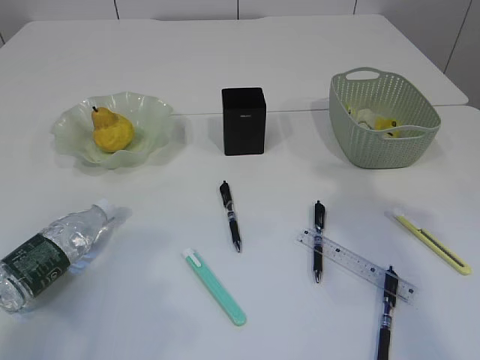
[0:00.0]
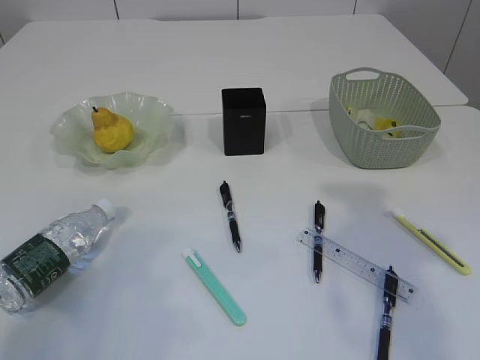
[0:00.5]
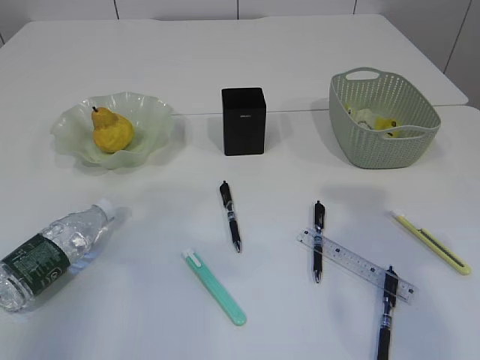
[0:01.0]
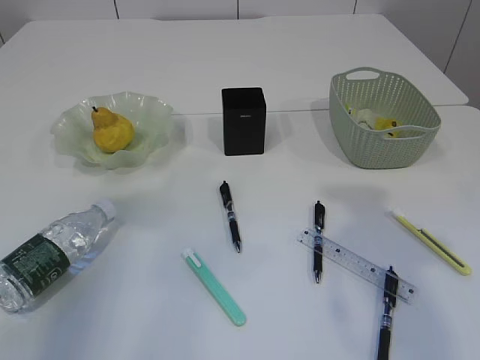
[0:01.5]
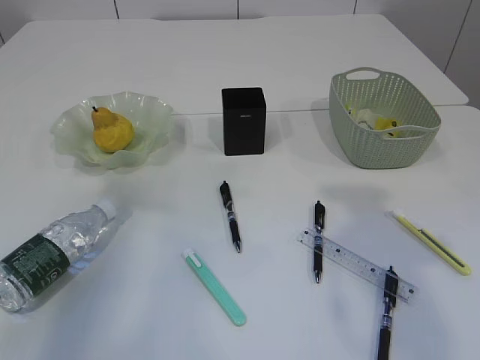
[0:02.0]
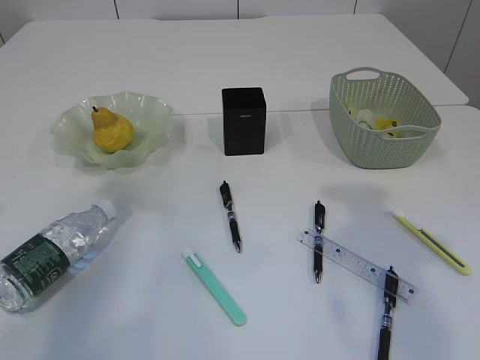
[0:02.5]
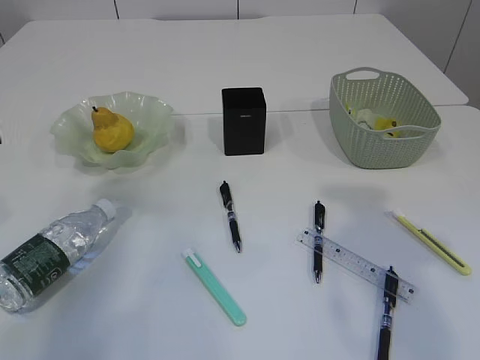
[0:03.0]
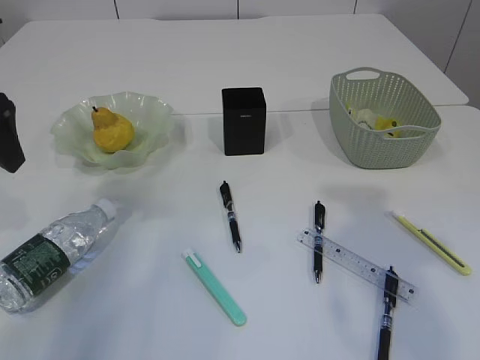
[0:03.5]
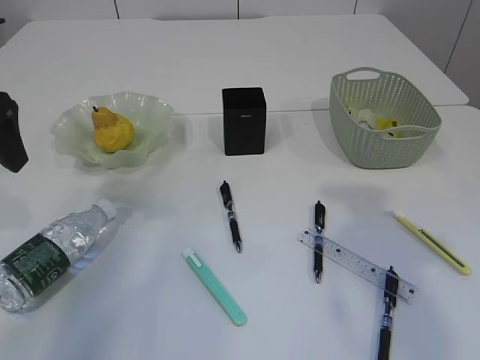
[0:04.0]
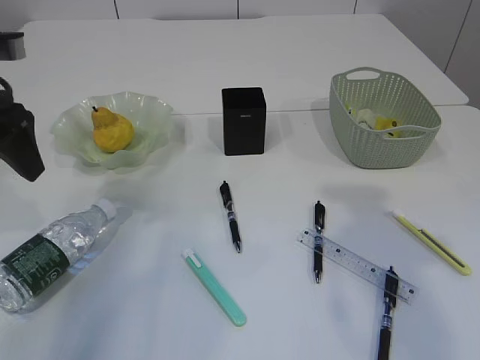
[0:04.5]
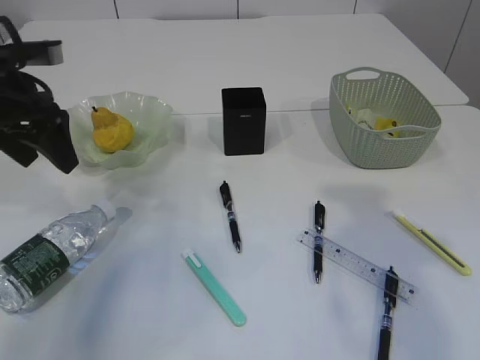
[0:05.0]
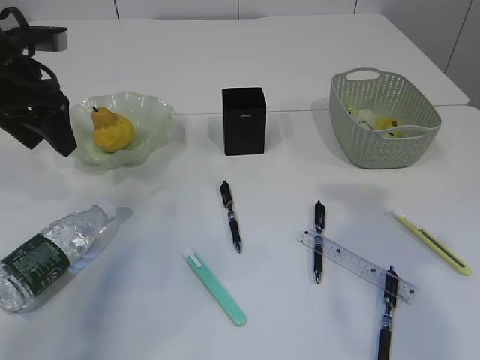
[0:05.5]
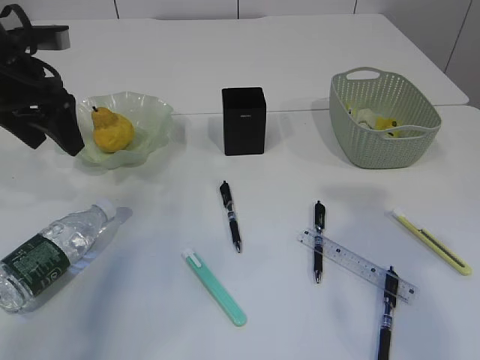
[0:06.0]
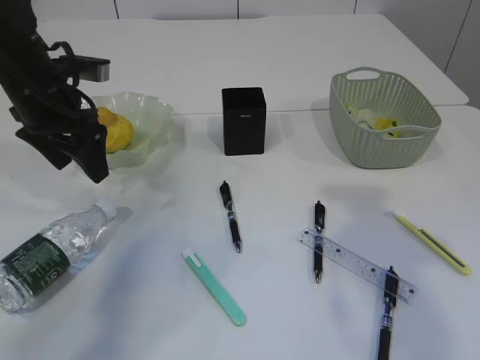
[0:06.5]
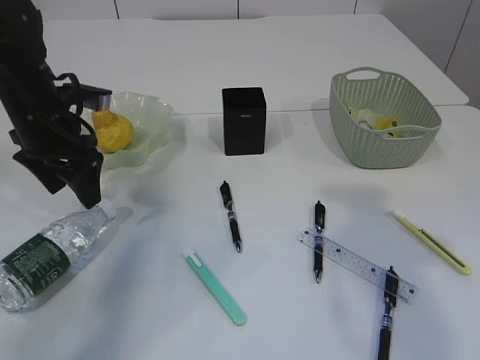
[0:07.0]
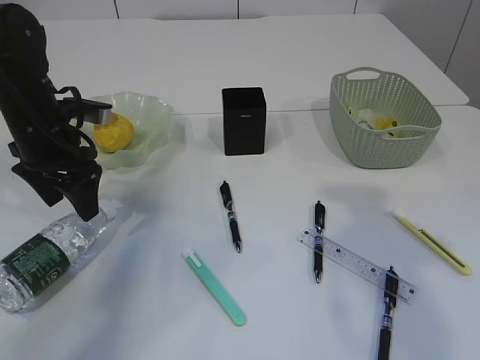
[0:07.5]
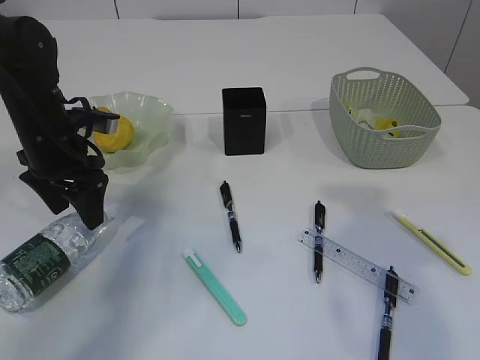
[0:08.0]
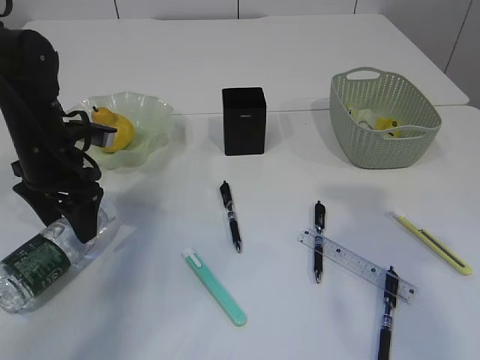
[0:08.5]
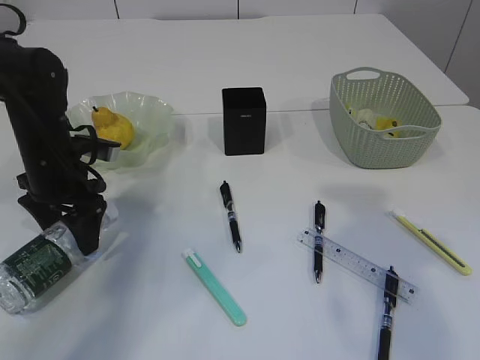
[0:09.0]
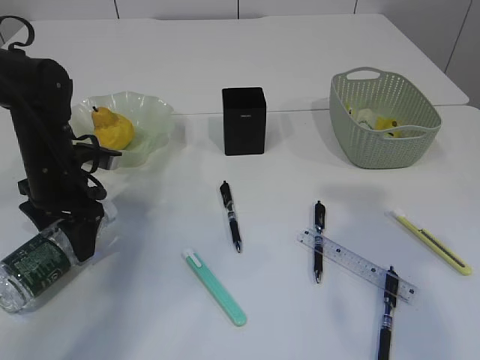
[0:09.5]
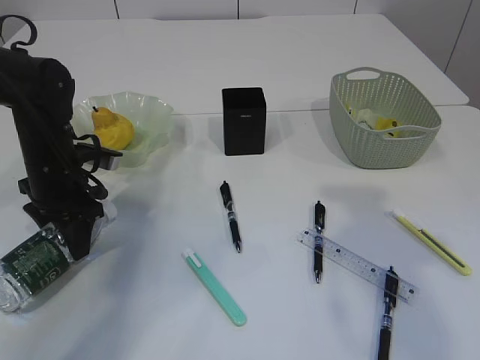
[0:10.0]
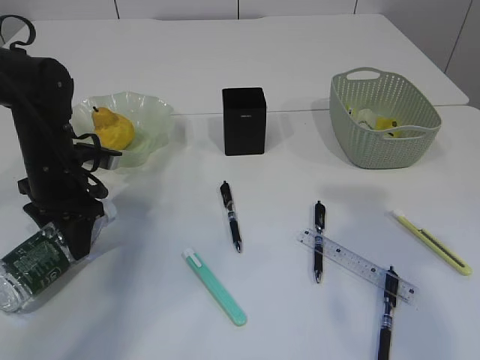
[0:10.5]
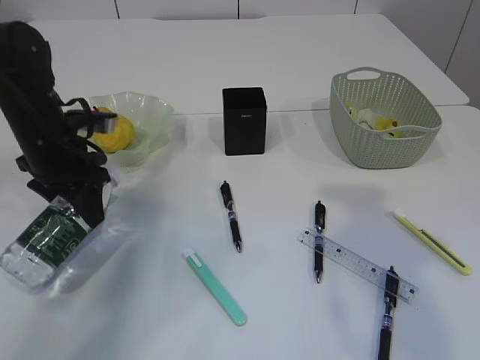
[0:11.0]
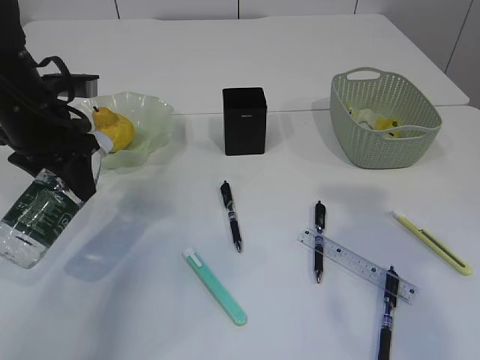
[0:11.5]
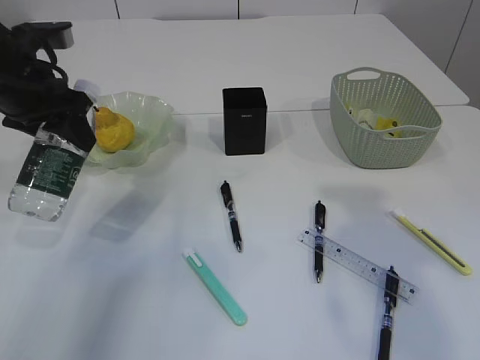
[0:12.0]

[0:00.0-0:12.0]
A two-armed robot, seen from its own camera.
Step, 0:00.0 to 0:11.0: Pick up the bottle with the left arm.
0:02.0 to 0:04.0: The left gripper heads downward, covering approximately 5 cm, and opens its fingers.
0:04.0 to 0:06.0: The left gripper is displaced forward by roughly 5 cm.
0:06.0 to 0:08.0: The left gripper goes approximately 10 cm downward.
0:08.0 to 0:10.0: The left gripper closes its fingers.
0:10.0 to 0:12.0: The left gripper moves upward, approximately 15 cm.

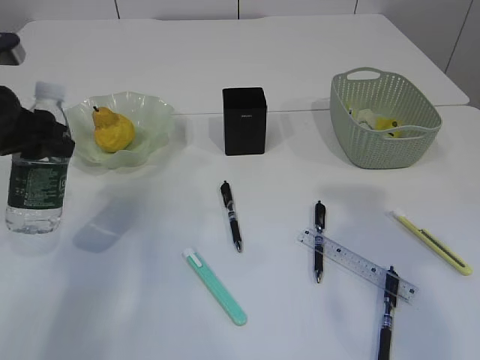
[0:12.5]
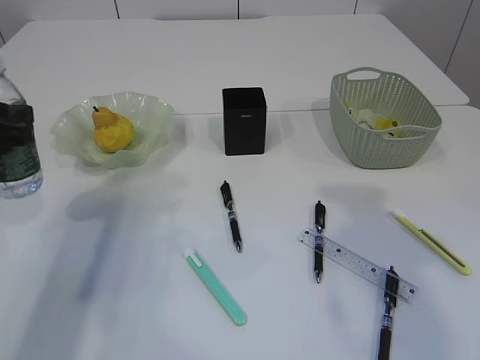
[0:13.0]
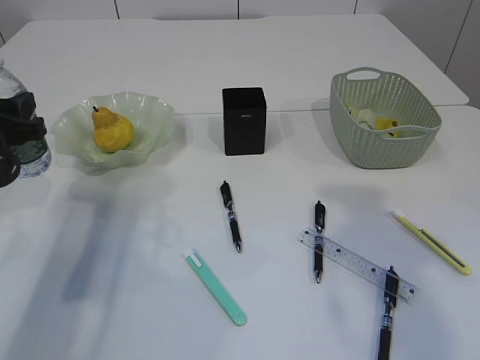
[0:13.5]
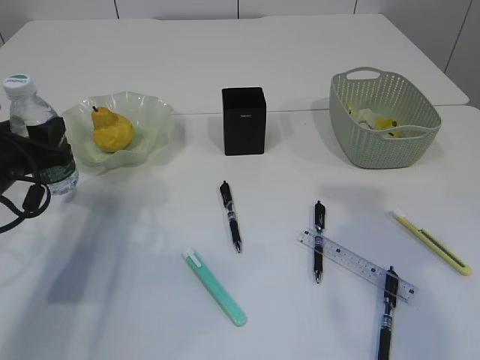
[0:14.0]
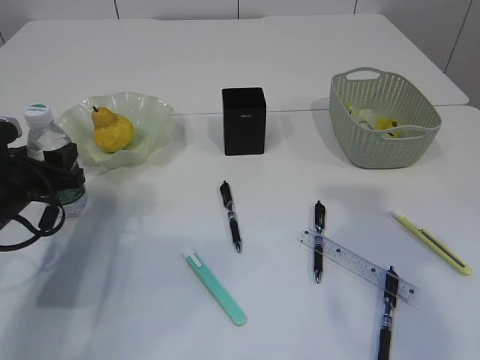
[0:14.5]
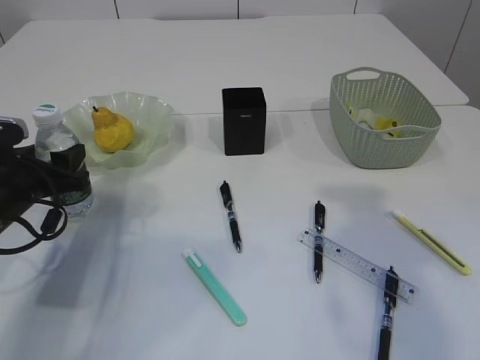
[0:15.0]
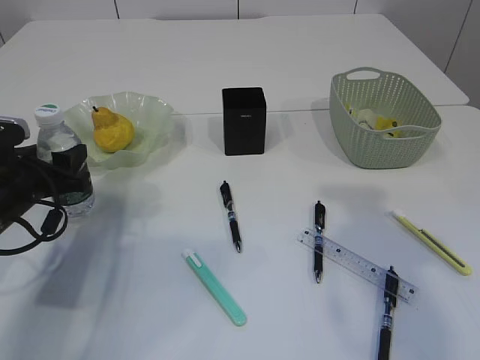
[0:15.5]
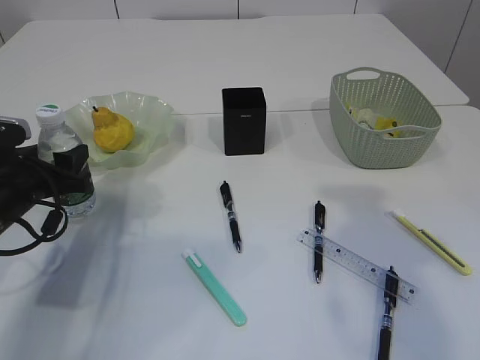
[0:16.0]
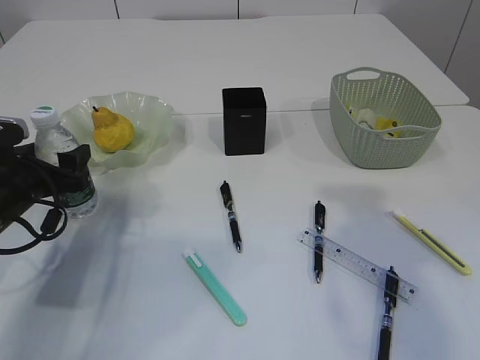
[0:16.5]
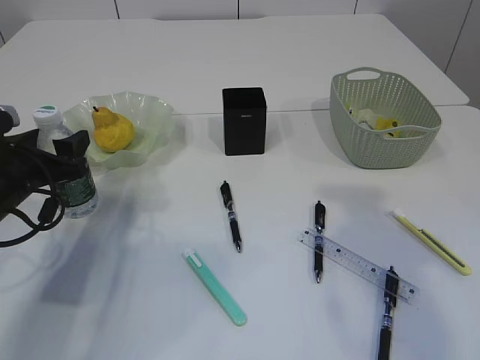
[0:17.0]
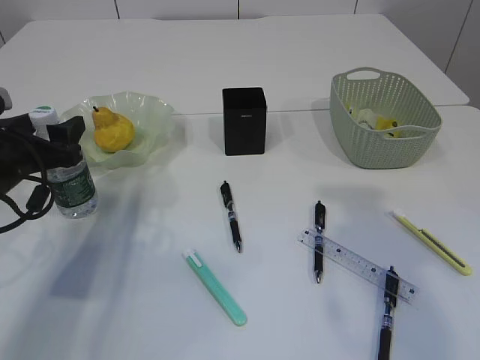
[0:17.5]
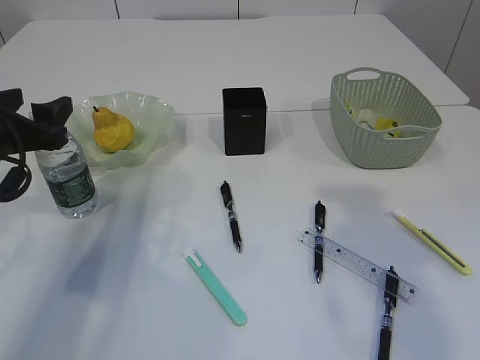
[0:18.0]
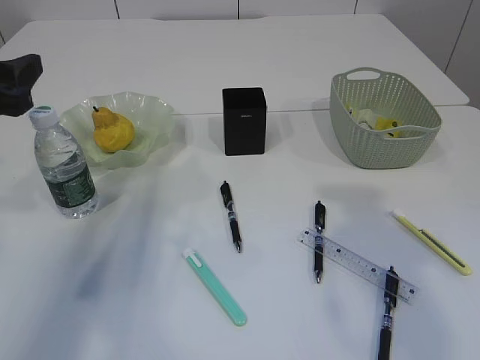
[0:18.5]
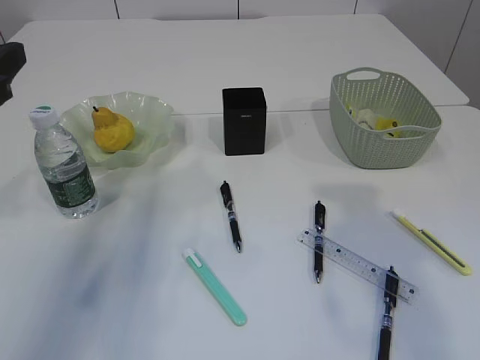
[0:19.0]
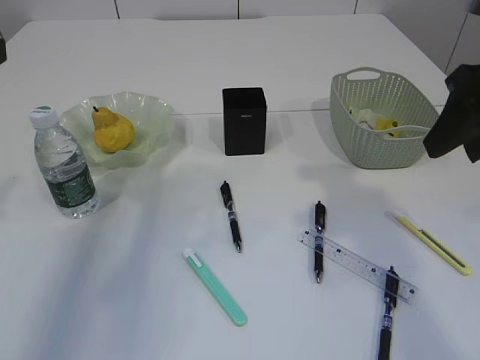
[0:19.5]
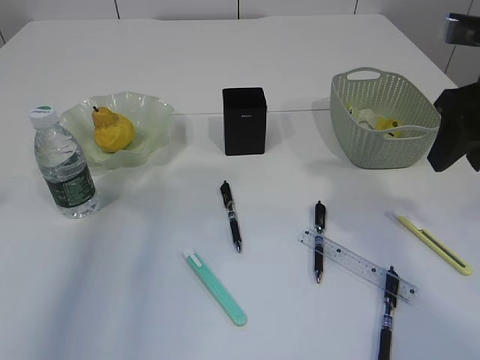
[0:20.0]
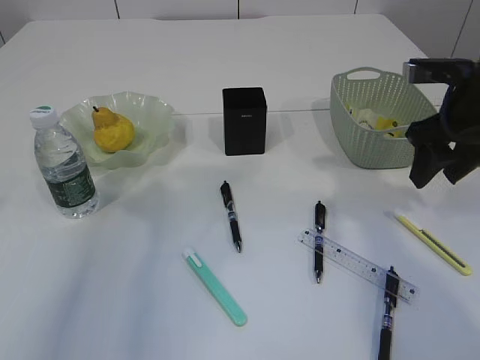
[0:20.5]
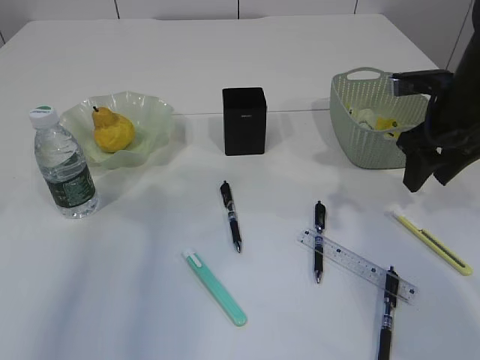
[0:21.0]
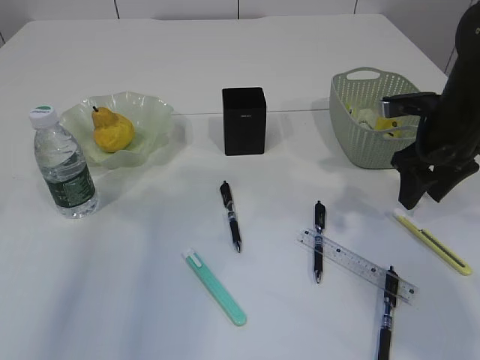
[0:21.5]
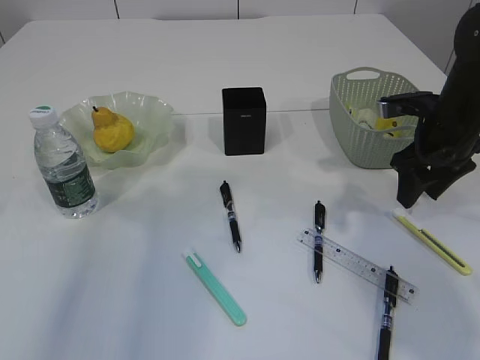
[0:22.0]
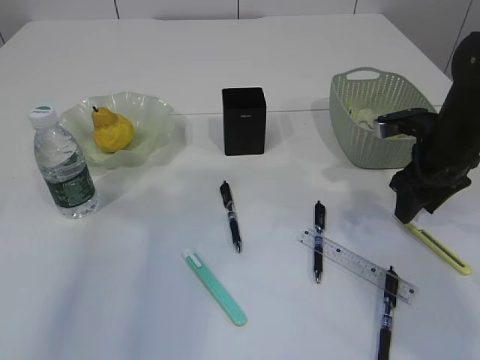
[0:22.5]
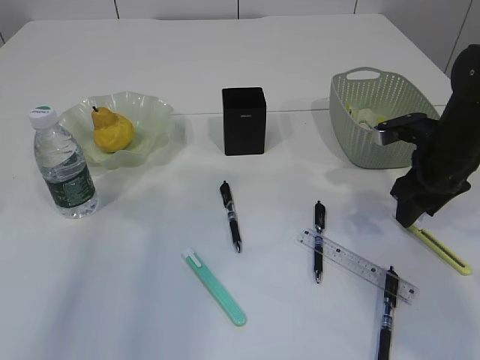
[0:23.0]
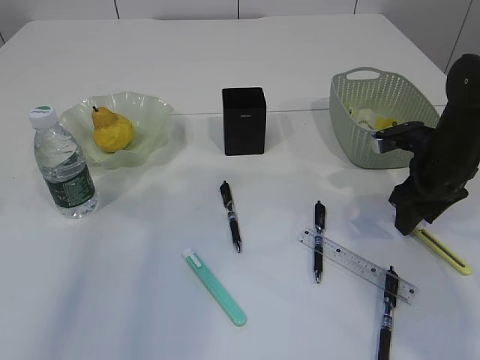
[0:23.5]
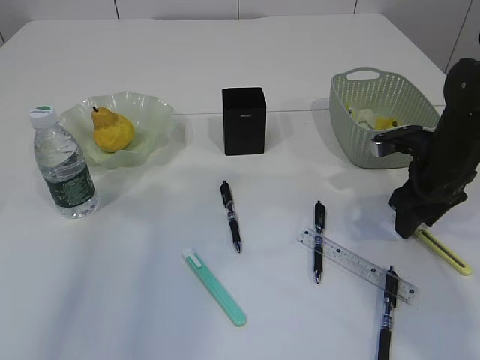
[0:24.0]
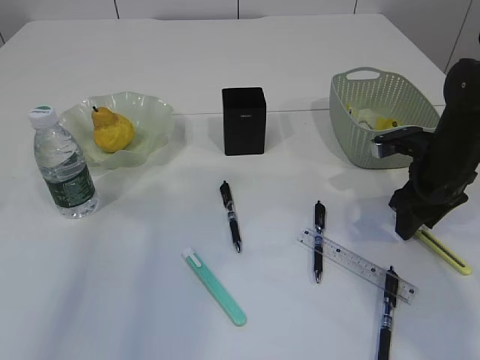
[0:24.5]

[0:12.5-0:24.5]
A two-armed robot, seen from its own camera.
Step, 0:12.5 to 0:18.0: Place the bottle.
0:12.5 to 0:14.5: The left gripper is displaced downward by approximately 10 cm.
0:14.5 to 0:16.5: The left gripper opens its fingers.
0:16.5 to 0:18.5: The left gripper shifts approximately 15 cm upward.
0:18.5 to 0:20.5: The right gripper moves forward and downward, roughly 20 cm; the left gripper goes roughly 10 cm upward and backward.
0:20.5 to 0:22.5: The right gripper shifts approximately 10 cm downward.
0:22.5 to 0:24.5: There are only small adjustments of the grippers.

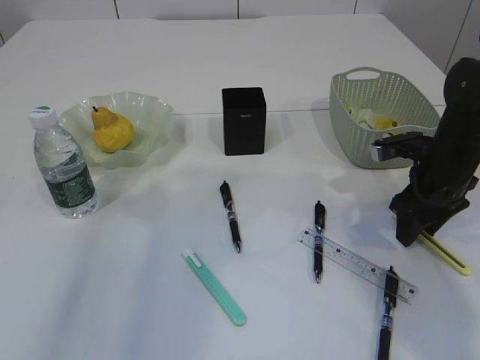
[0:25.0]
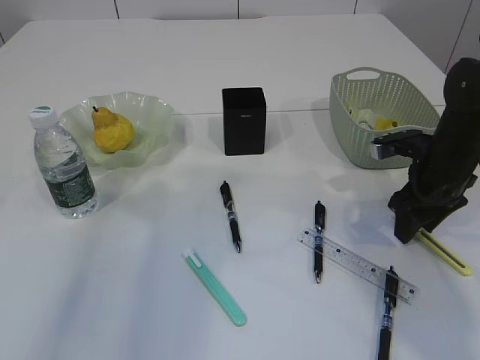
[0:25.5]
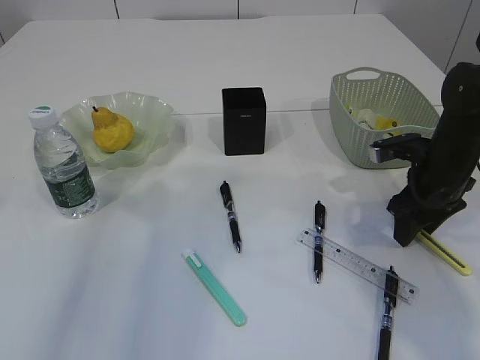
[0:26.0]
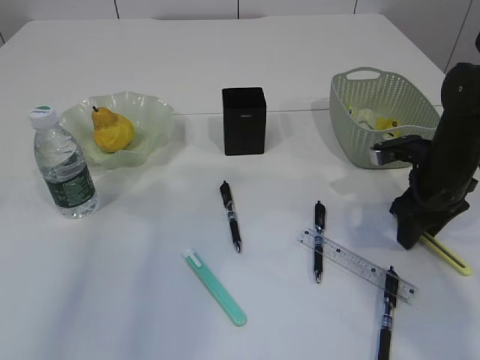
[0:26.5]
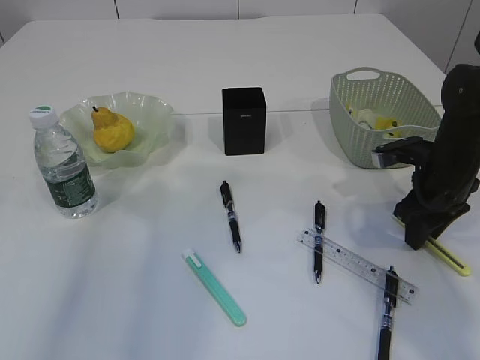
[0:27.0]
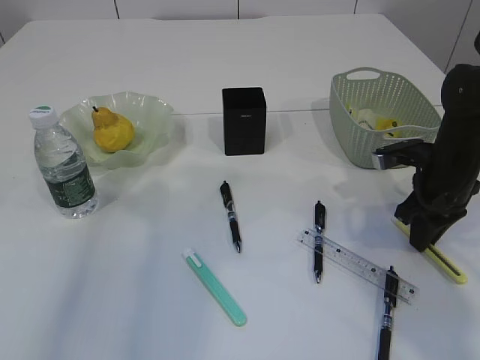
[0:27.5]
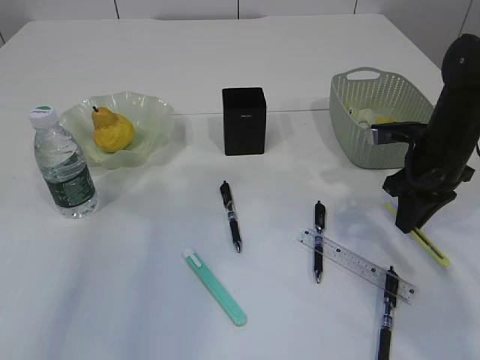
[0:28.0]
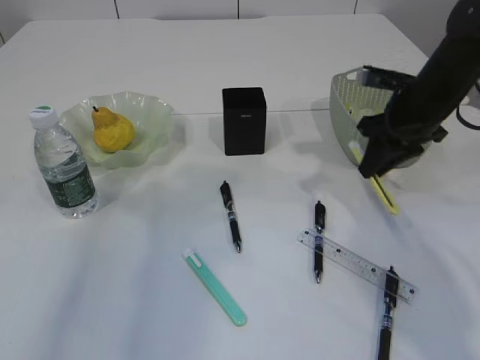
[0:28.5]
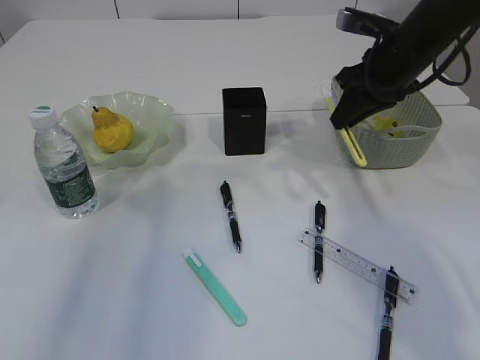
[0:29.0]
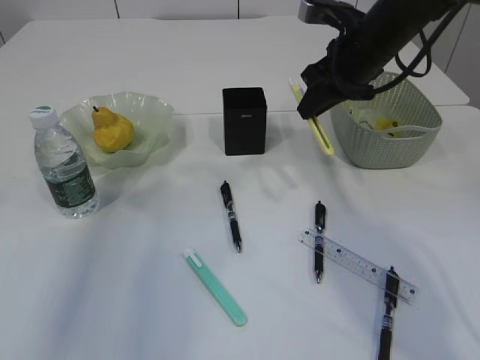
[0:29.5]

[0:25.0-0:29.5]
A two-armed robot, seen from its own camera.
Step, 0:25.0 to 0:28.0: pick up the yellow knife.
0:25.0 to 0:27.0: The two grippers keep their place.
0:27.0 to 0:29.5: The right gripper travels upward, to the left and forward by roughly 20 cm, and closes its fingers.
